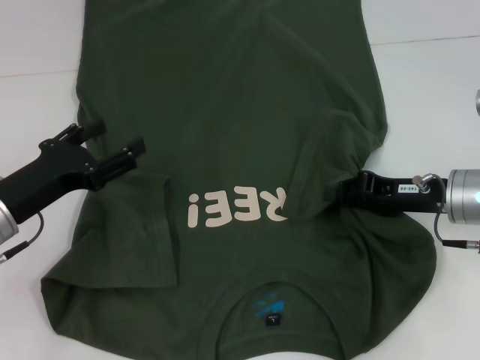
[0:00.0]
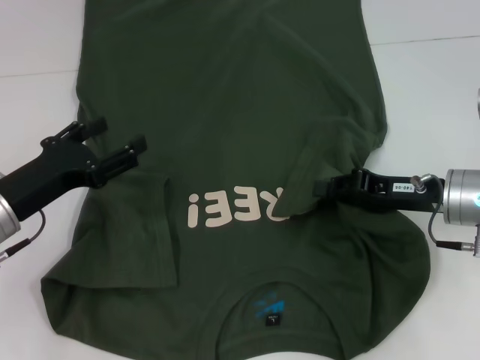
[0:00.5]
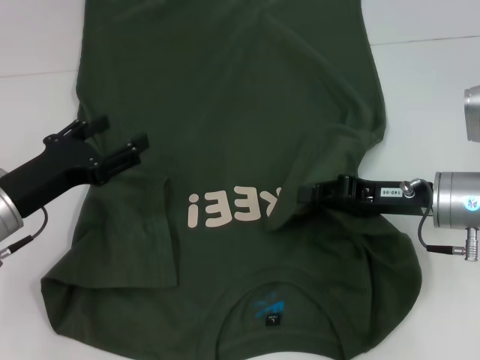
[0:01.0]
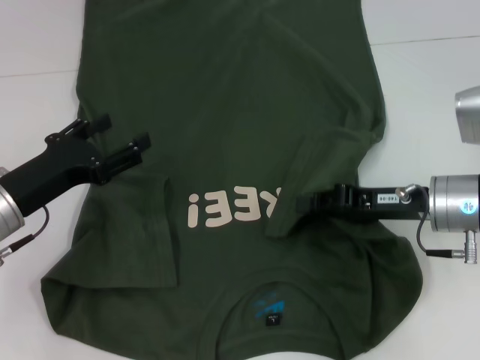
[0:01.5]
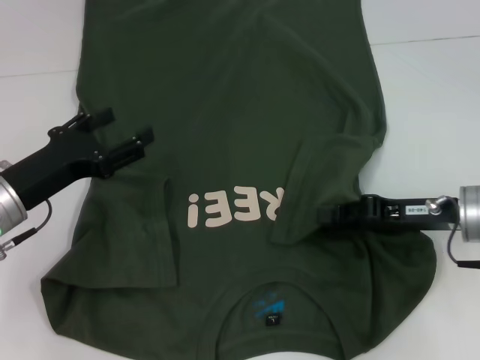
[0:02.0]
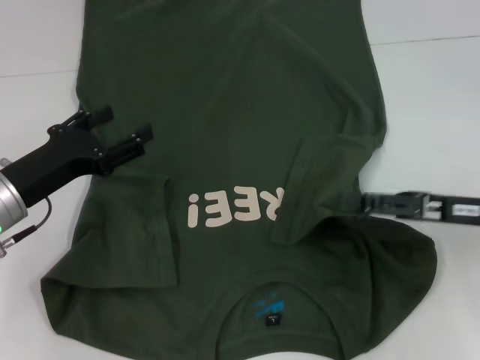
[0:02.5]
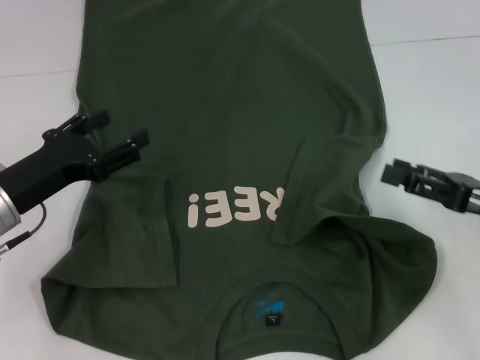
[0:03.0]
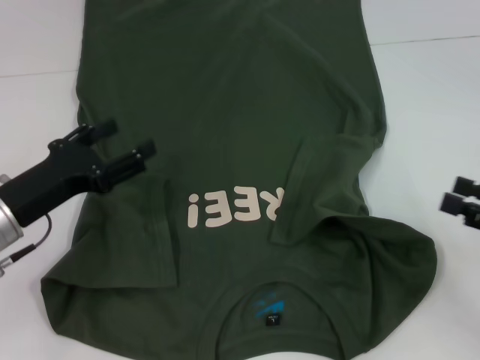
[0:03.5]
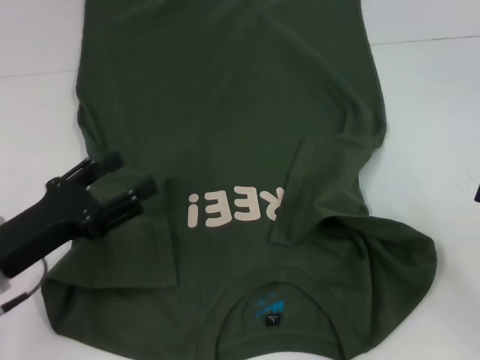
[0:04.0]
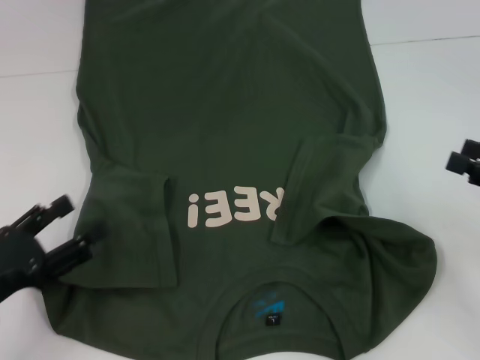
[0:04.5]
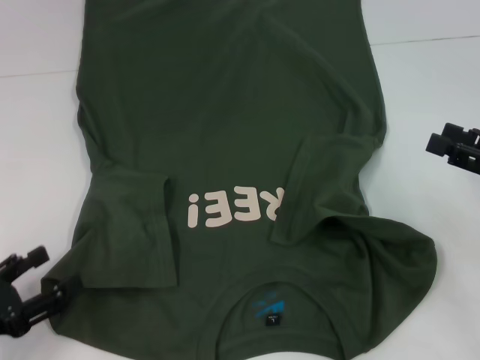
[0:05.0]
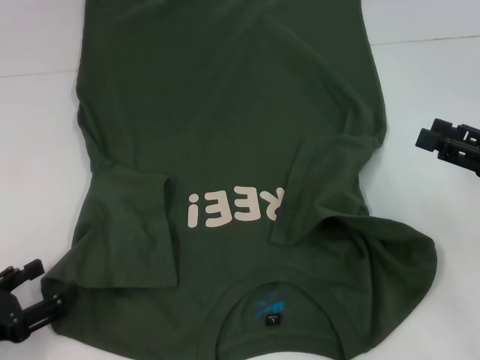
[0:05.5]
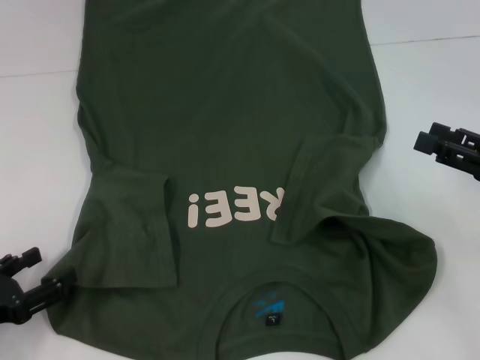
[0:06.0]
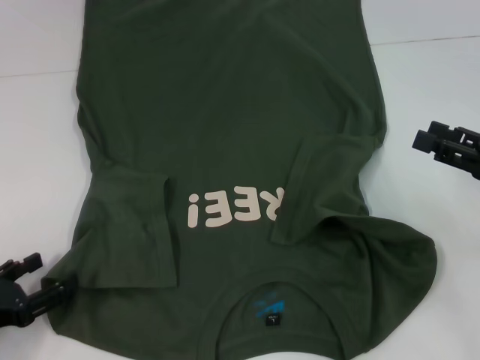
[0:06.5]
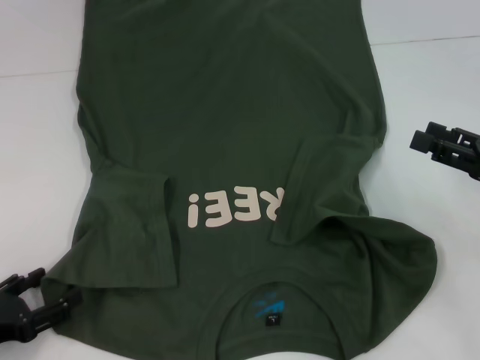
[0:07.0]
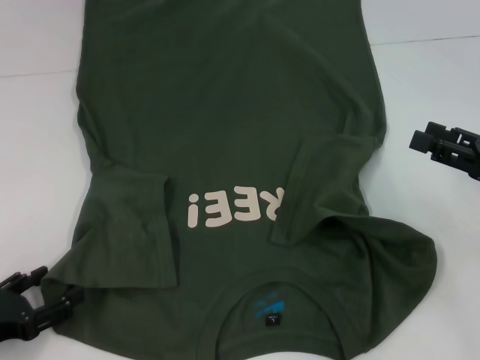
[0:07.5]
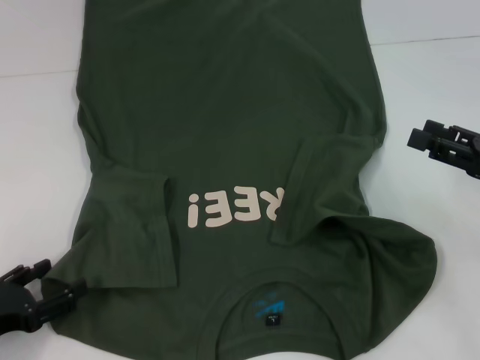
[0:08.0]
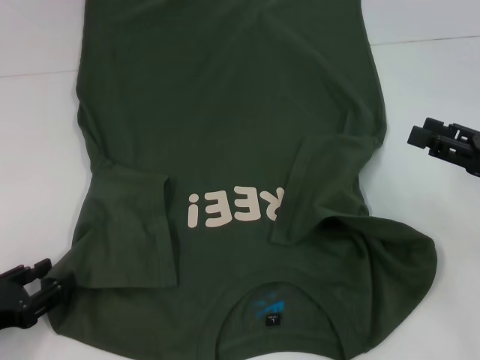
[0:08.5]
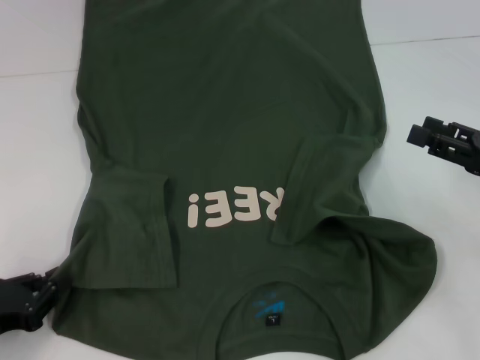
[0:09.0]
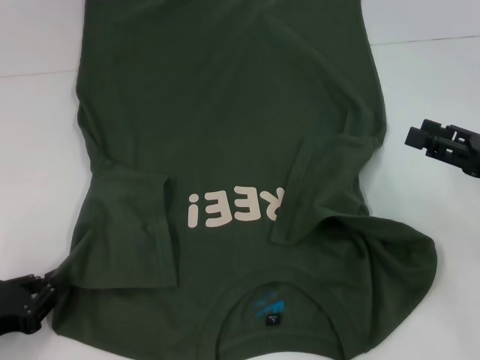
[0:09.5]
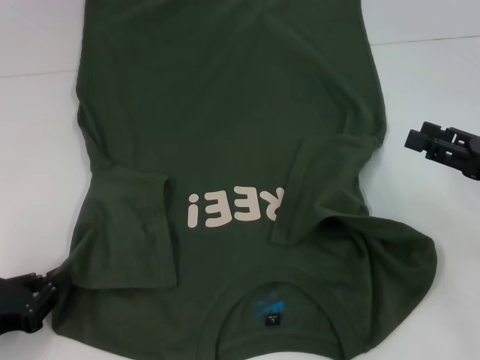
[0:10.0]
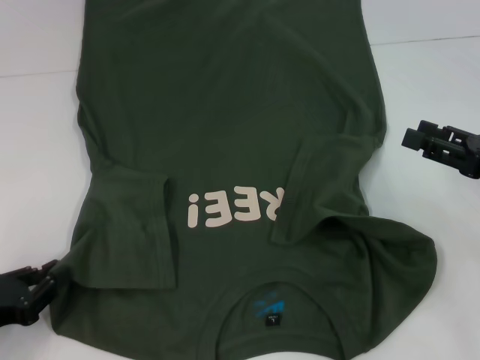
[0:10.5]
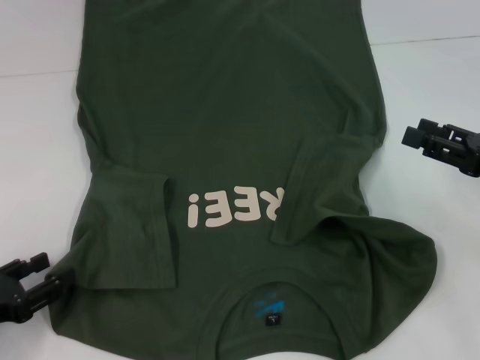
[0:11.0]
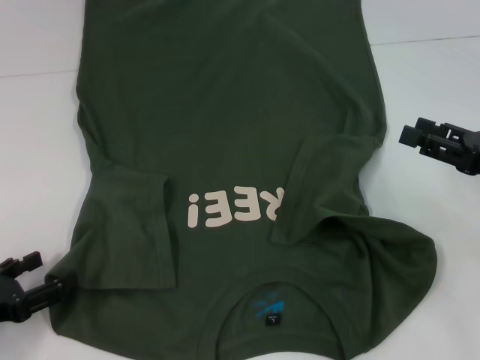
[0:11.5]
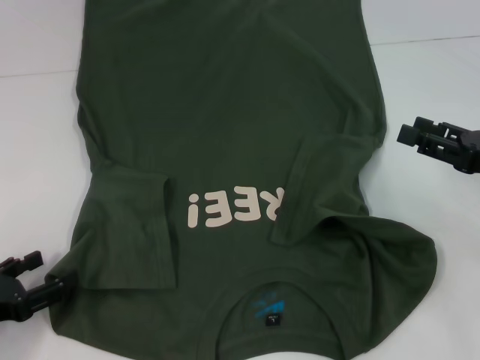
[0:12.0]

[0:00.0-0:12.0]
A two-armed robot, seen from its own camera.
Step, 0:00.0 to 0:02.0: Fold the bottom right sleeve with your right hand.
0:00.0 to 0:02.0: The grippers make only small movements.
0:02.0 to 0:04.0: The right gripper moves to the right and backward, approximately 15 cm, and opens up. Meanwhile the left gripper heads backward, covering about 5 cm.
0:04.0 to 0:06.0: The right gripper shifts approximately 5 cm forward. Meanwhile the left gripper shifts roughly 10 cm to the left and backward.
0:06.0 to 0:08.0: Both grippers stay about where they are.
0:08.0 to 0:10.0: The left gripper closes up.
0:10.0 to 0:12.0: The left gripper opens.

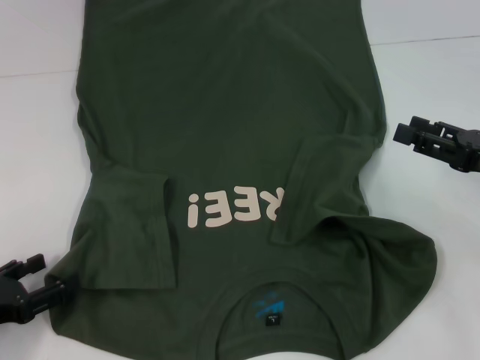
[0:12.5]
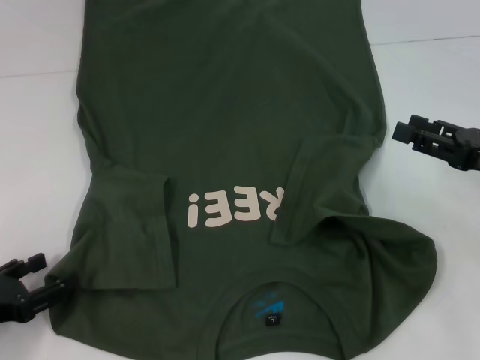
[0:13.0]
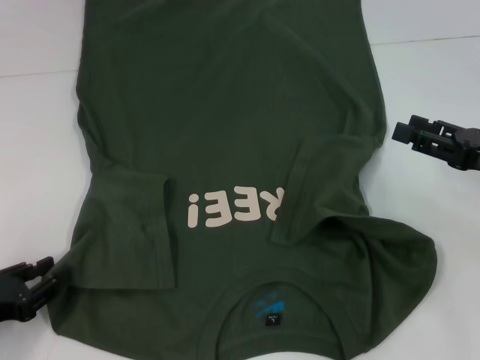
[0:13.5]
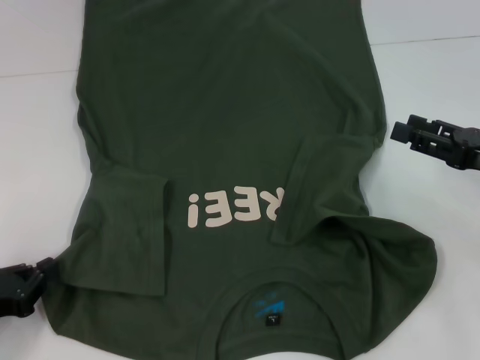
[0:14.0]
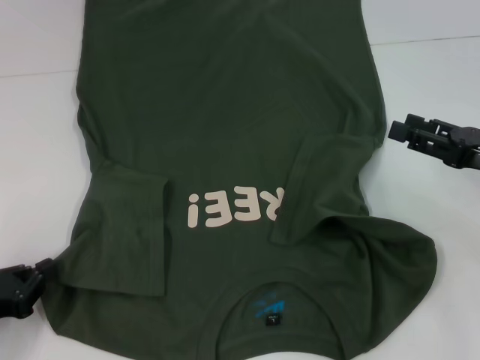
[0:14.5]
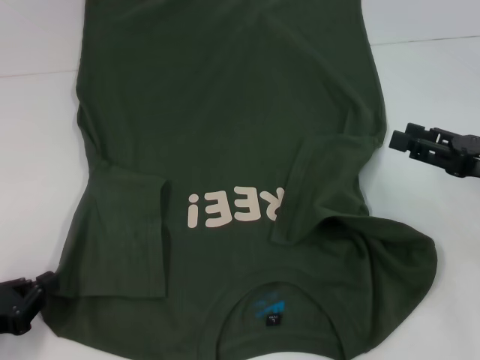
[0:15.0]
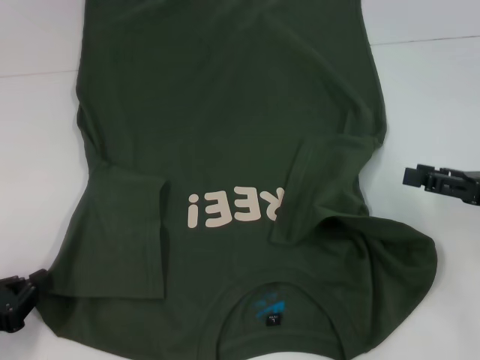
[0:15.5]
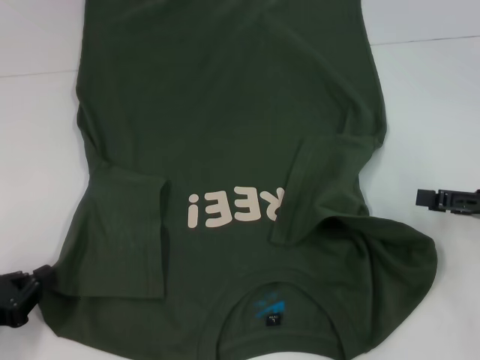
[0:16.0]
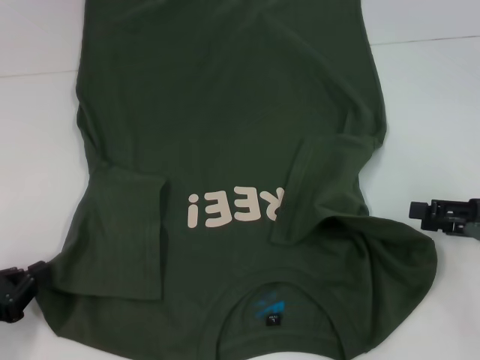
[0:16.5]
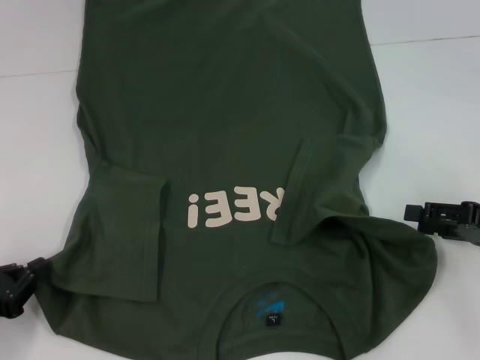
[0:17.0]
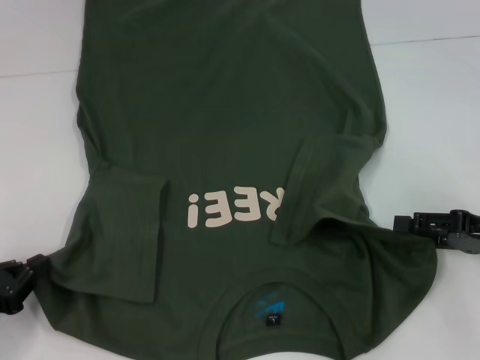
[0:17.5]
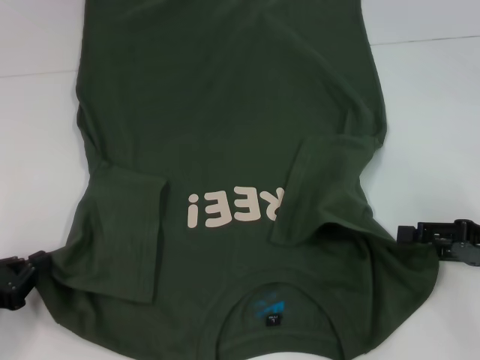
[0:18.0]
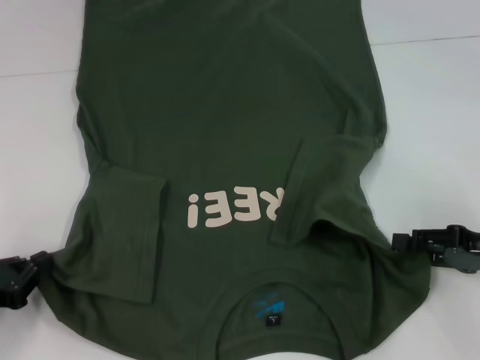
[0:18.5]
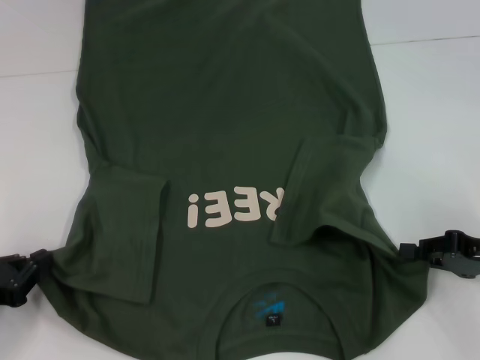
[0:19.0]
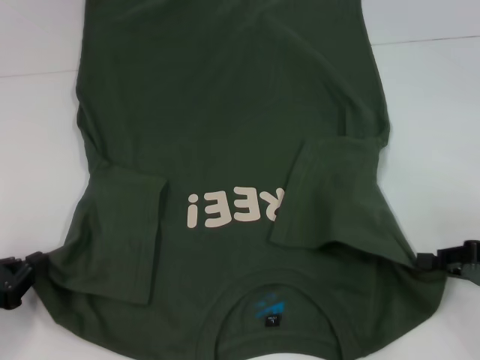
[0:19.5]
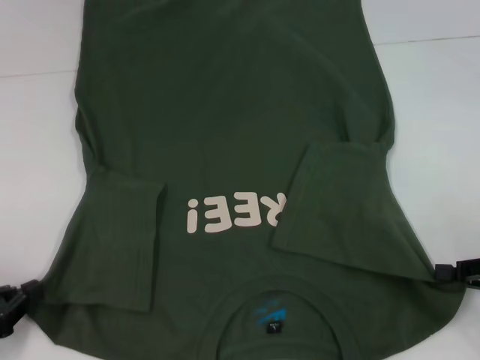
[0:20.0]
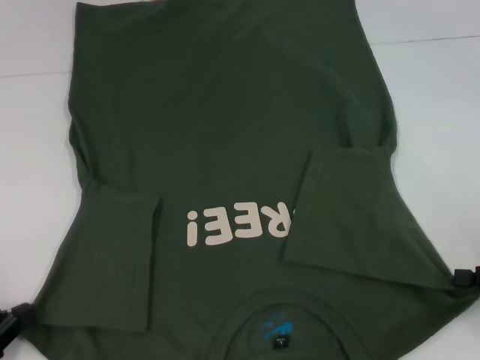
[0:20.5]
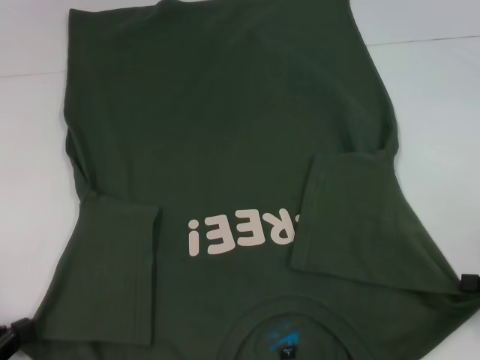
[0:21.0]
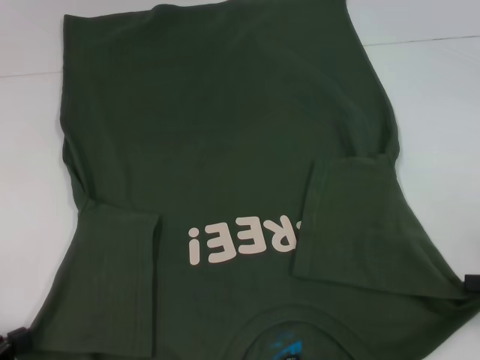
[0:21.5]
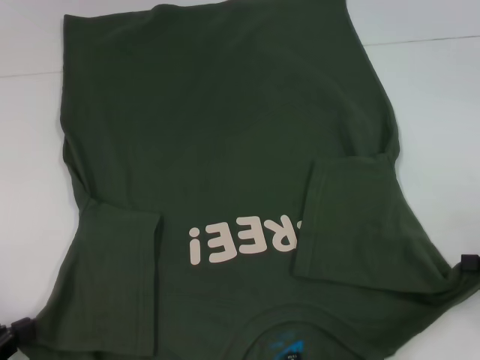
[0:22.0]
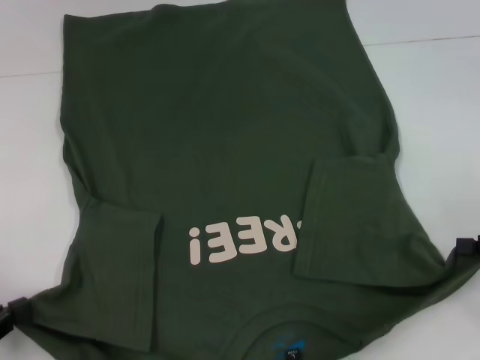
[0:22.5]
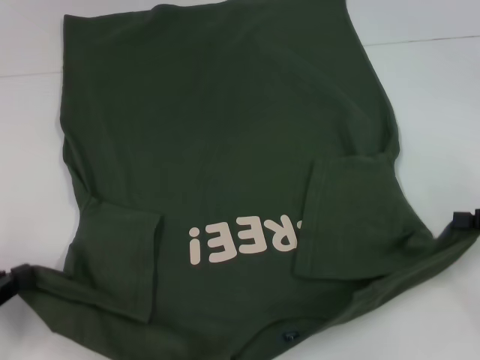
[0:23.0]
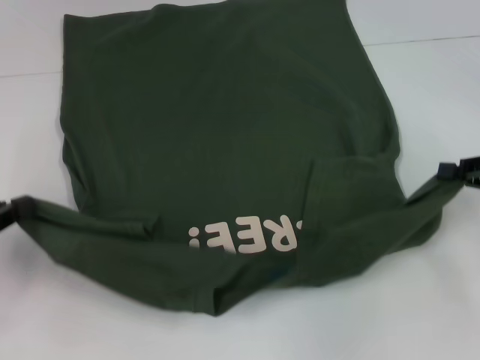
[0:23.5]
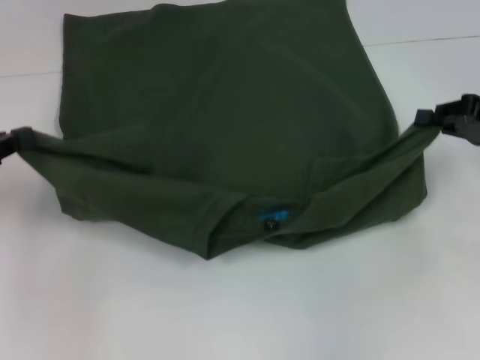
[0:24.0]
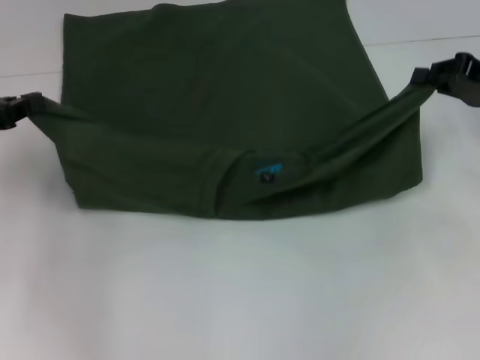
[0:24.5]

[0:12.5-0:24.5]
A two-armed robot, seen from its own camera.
Step, 0:14.5 to 0:20.0: Grab the bottom right corner with your right hand.
0:12.5 to 0:14.5: The left gripper closes up.
0:16.5 to 0:18.5: The grippers move only a little.
0:18.5 to 0:20.5: The right gripper moves roughly 5 cm, and closes.
0:20.5 to 0:22.5: The grippers move only a little.
0:22.5 to 0:24.5: The two grippers go some 15 cm forward and upward.

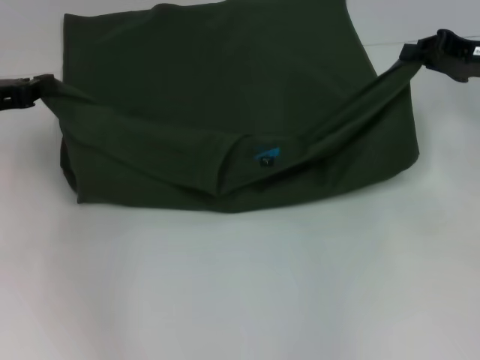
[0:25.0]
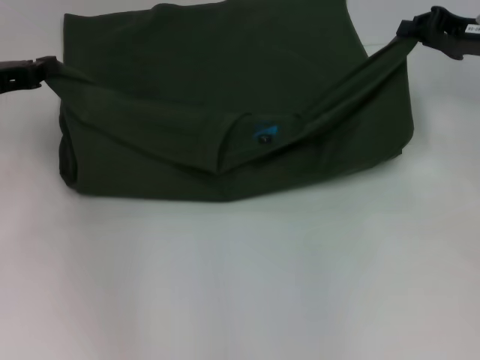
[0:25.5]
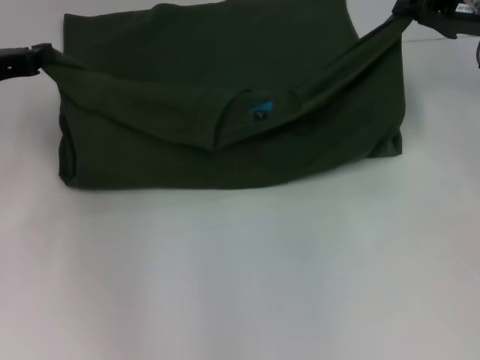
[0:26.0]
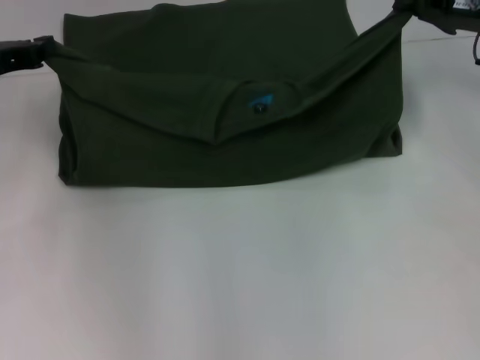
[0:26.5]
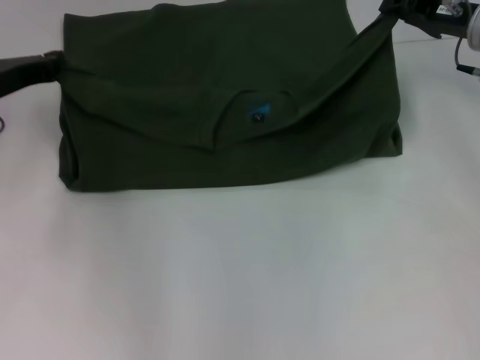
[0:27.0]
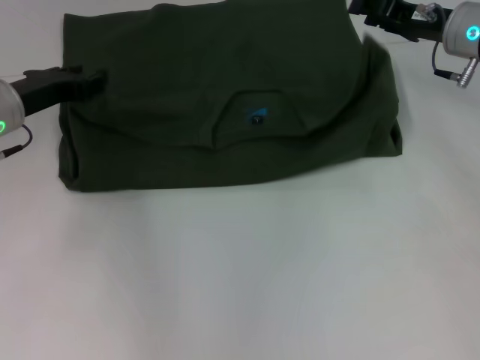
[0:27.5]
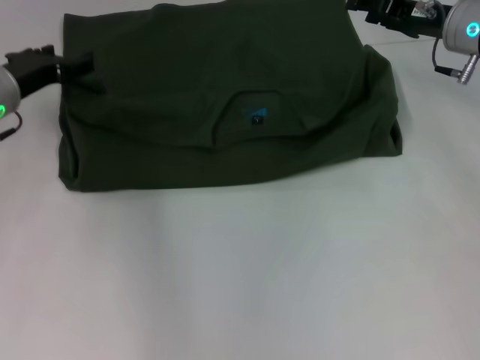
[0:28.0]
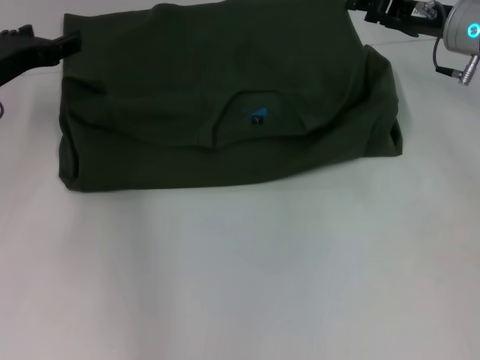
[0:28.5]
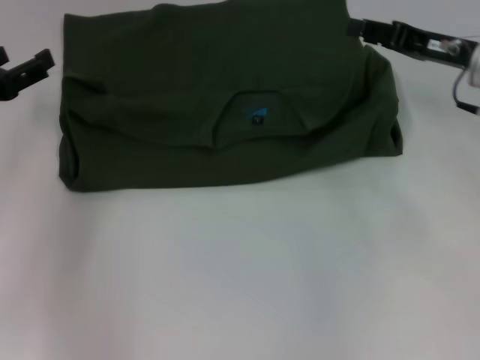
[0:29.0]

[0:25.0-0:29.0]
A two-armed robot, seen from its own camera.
Step, 0:25.0 to 0:27.5: Fold the clothes with your left hand.
Step, 0:25.0 to 0:27.5: Fold the clothes with your right hand.
0:25.0 to 0:27.0: The right gripper moves approximately 5 cm; the left gripper ends up about 5 cm from where it was.
0:27.0 to 0:29.0: The left gripper travels backward by some 5 cm, and opens its fingers; the right gripper opens its fingers.
